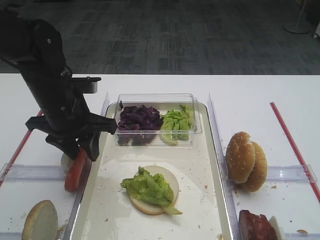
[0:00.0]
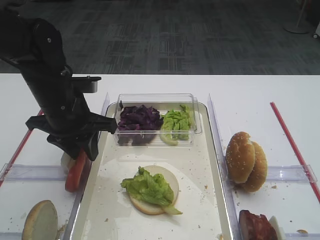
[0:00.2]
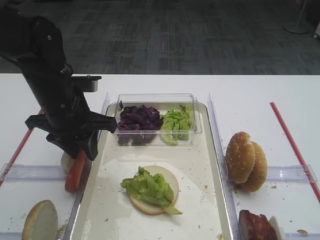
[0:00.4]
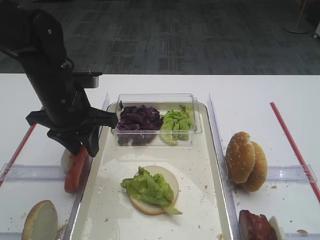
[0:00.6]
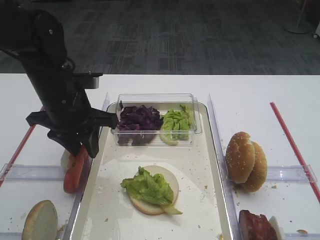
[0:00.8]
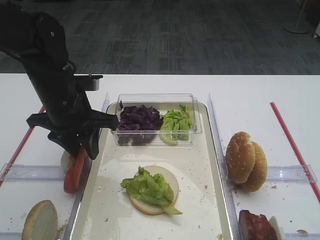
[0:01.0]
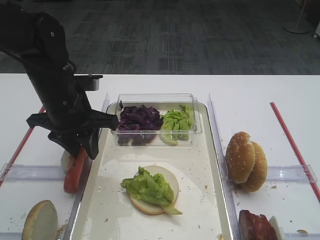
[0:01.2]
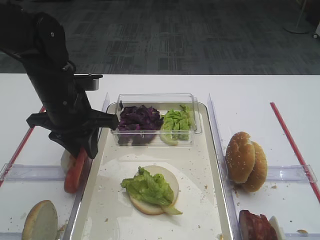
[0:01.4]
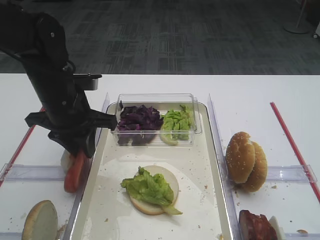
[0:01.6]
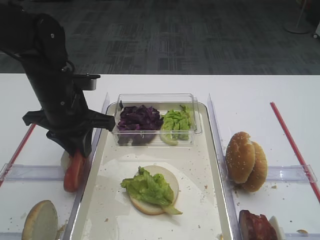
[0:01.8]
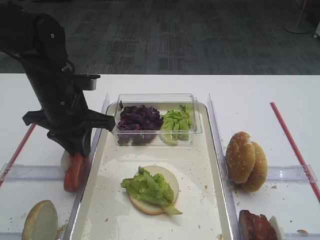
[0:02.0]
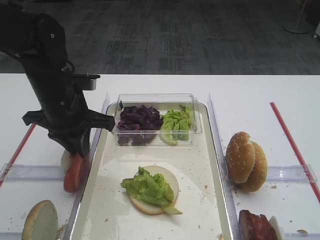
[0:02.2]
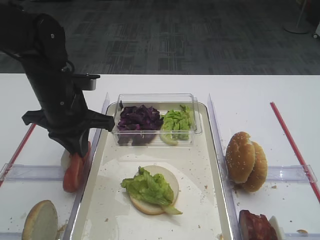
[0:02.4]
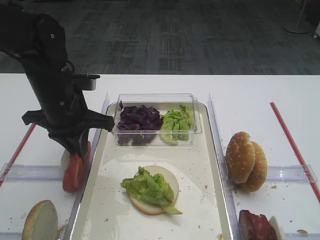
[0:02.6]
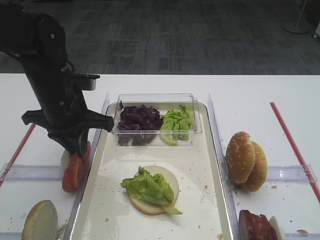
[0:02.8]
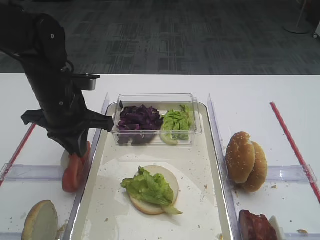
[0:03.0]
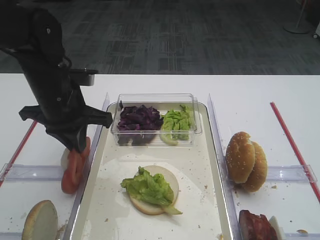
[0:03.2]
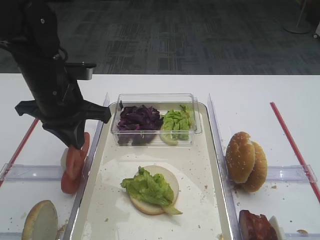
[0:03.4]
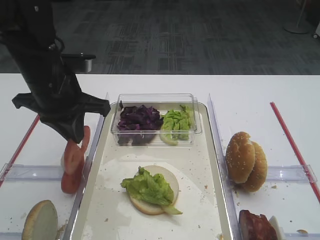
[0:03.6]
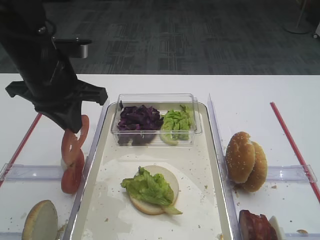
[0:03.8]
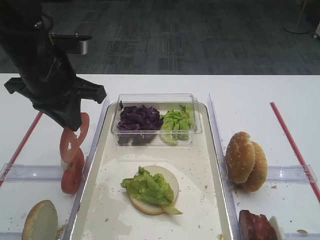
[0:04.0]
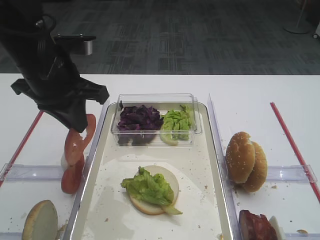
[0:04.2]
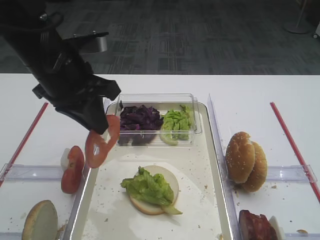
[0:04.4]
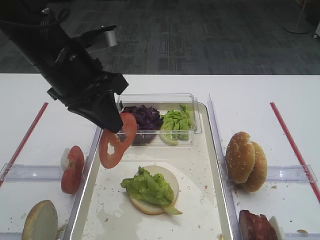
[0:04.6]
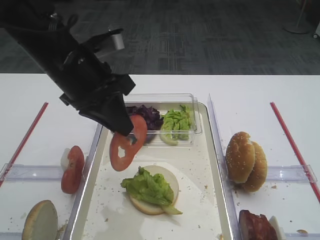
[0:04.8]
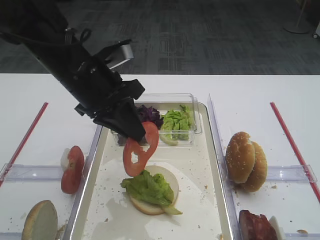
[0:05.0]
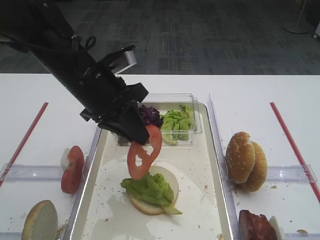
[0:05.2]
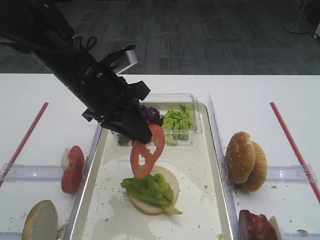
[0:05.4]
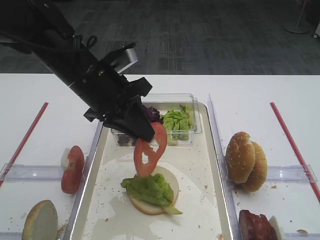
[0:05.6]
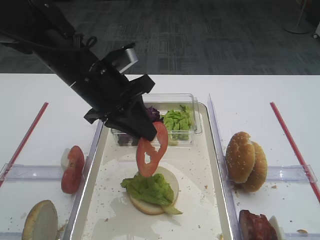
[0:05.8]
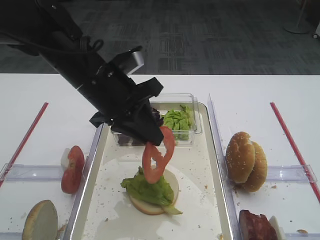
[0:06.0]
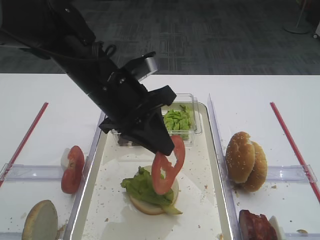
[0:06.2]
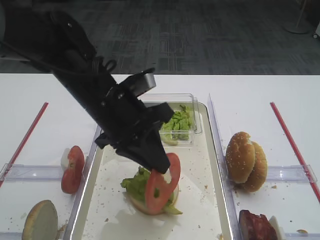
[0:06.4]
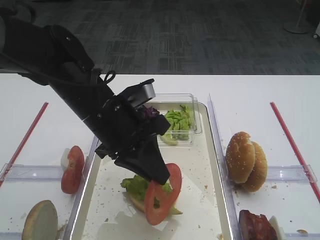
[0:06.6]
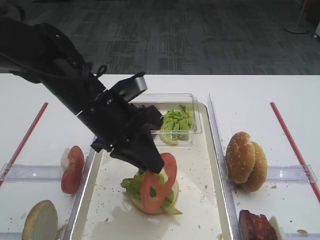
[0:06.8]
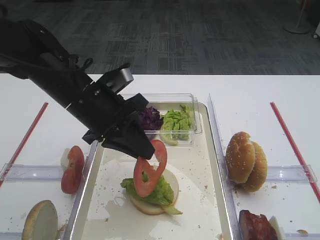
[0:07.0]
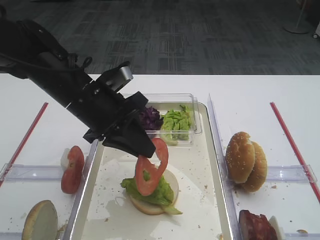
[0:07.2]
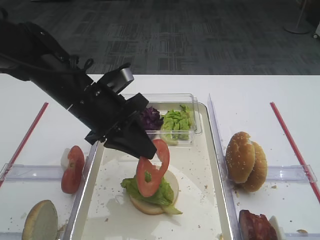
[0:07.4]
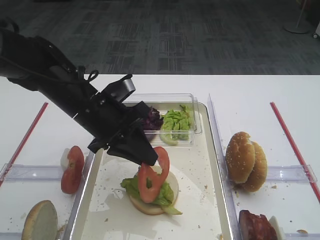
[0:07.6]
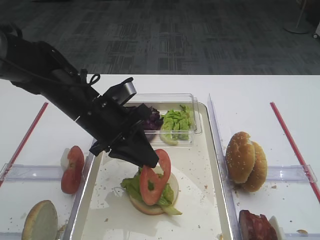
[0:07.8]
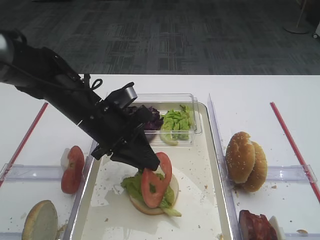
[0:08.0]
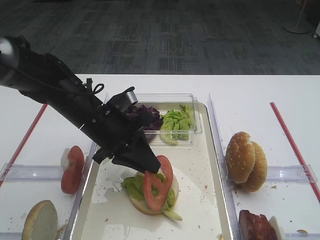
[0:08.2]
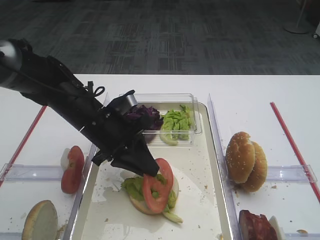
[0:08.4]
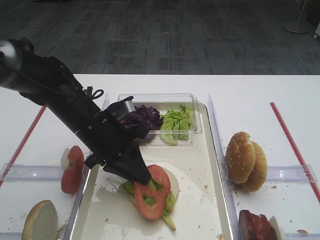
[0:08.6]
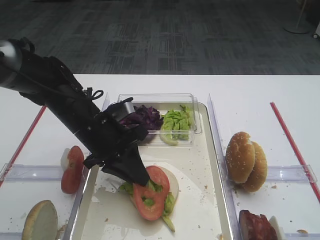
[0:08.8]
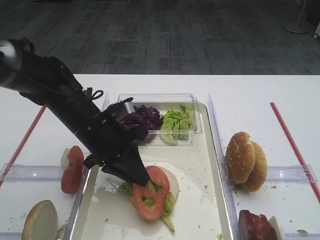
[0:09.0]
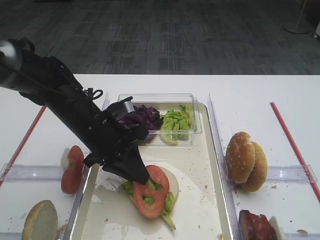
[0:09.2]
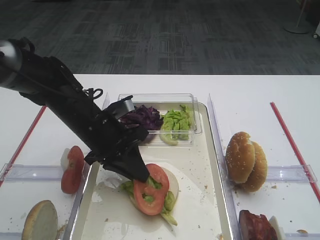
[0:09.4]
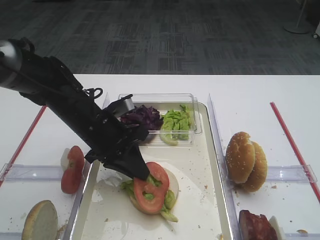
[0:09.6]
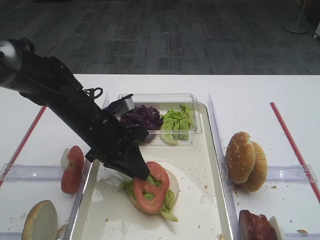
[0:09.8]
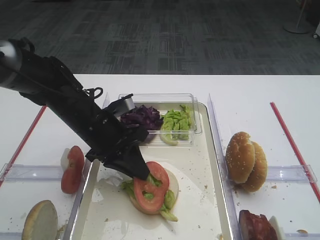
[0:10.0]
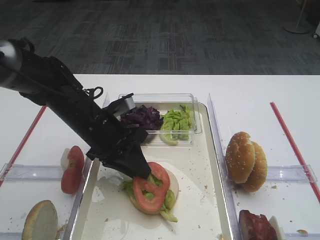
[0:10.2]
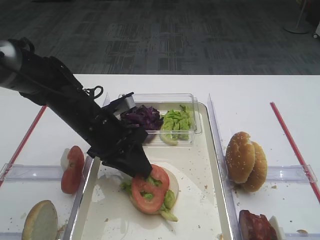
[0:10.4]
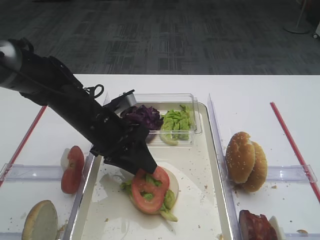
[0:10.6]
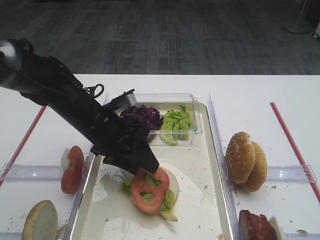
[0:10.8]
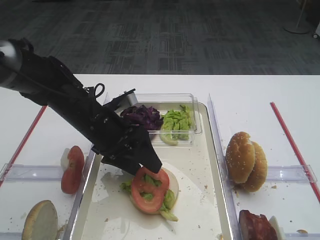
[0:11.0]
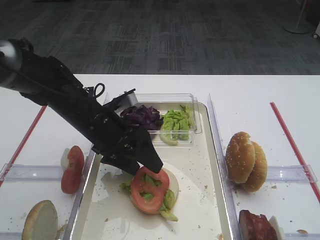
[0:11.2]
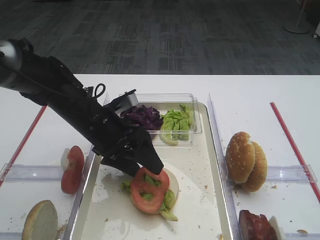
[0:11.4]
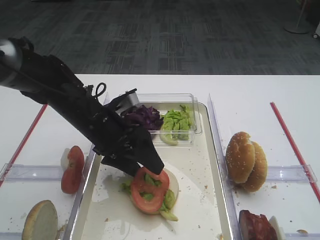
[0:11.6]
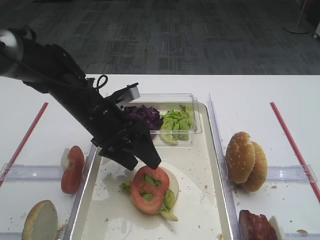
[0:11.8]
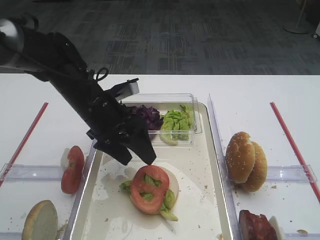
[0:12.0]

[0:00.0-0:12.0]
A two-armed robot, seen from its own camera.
Step, 0:00.0 to 0:03.8: Pick up the tomato slice with the left gripper.
Step, 0:04.0 to 0:11.8: Place the tomato slice on the lettuce leaf with the left gripper.
0:00.0 to 0:03.0: The two grippers keep their place.
0:03.0 to 0:04.4: The left gripper heads upward, covering about 10 cm.
0:04.4 to 0:06.0: The left gripper goes approximately 5 cm to the right.
0:06.0 to 0:07.6: The left gripper ends up roughly 5 cm from where it was.
0:07.6 to 0:10.4: The grippers move only a little.
0:10.4 to 0:12.0: The left gripper opens up.

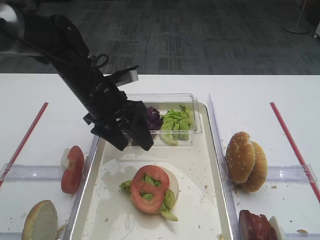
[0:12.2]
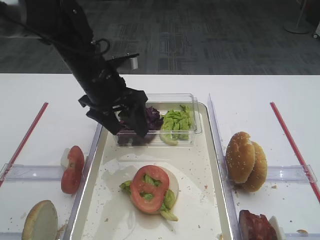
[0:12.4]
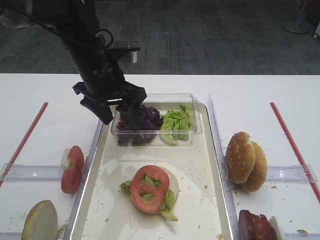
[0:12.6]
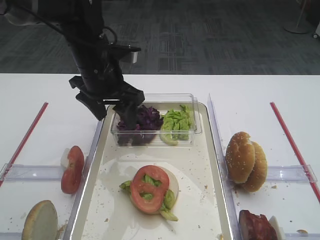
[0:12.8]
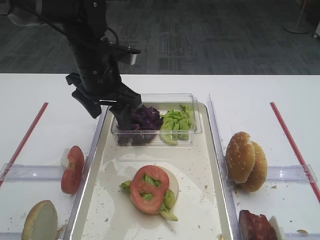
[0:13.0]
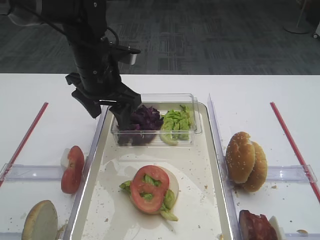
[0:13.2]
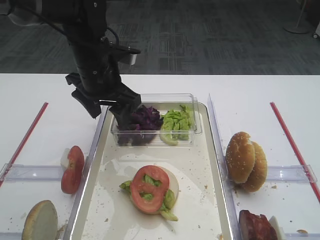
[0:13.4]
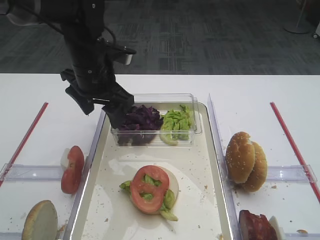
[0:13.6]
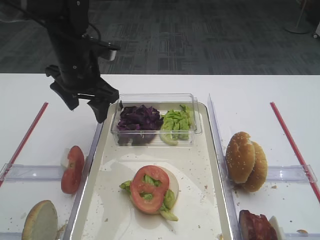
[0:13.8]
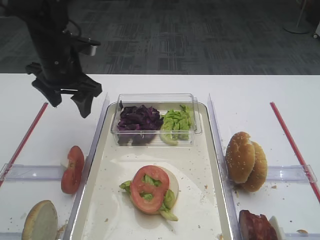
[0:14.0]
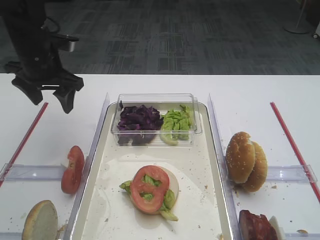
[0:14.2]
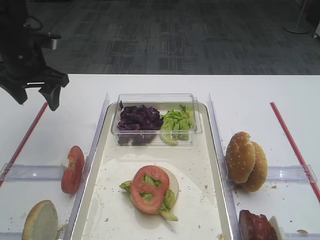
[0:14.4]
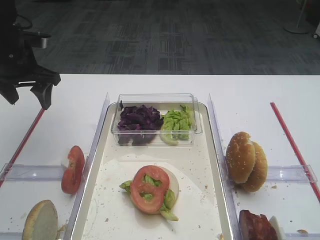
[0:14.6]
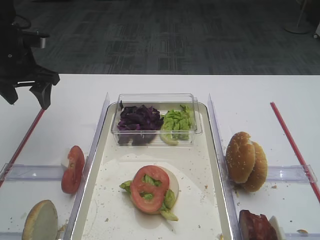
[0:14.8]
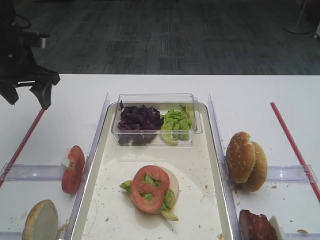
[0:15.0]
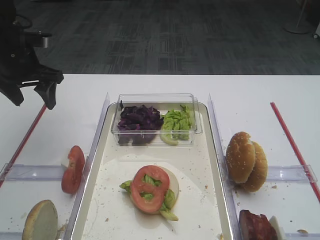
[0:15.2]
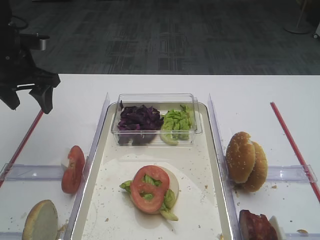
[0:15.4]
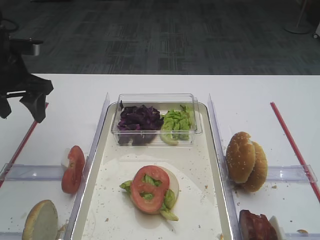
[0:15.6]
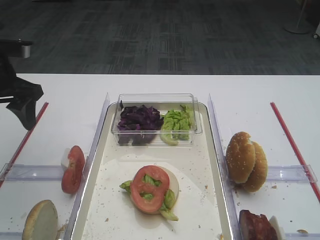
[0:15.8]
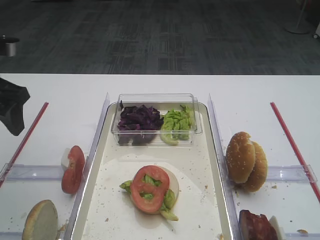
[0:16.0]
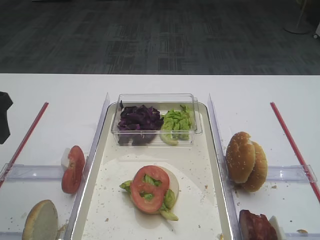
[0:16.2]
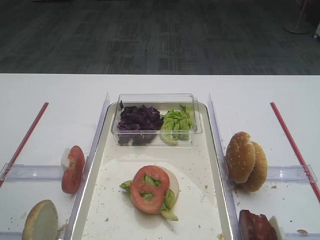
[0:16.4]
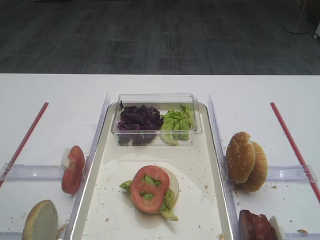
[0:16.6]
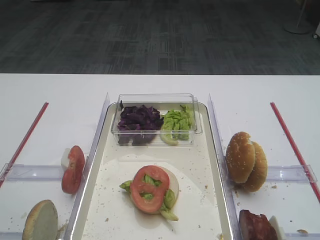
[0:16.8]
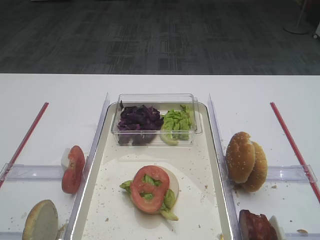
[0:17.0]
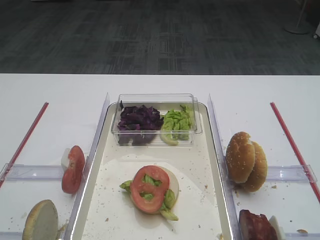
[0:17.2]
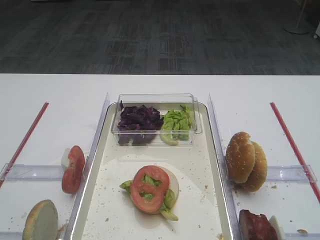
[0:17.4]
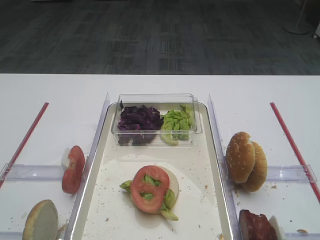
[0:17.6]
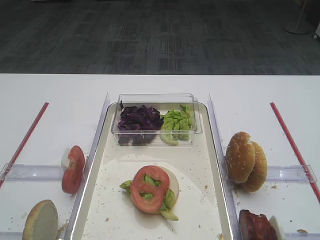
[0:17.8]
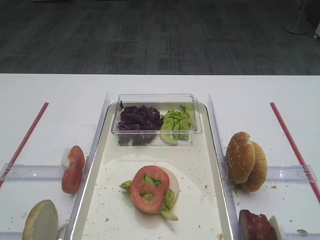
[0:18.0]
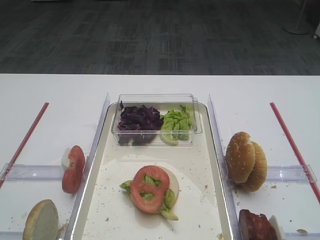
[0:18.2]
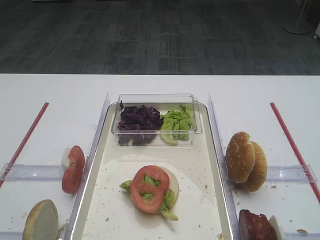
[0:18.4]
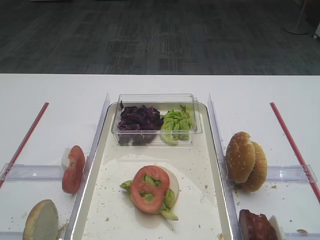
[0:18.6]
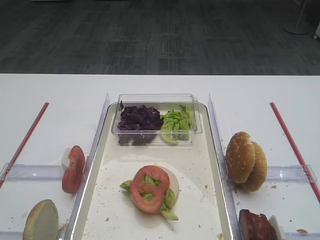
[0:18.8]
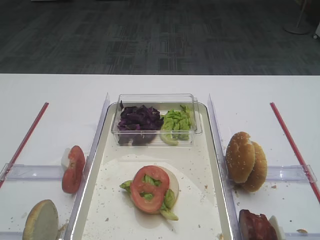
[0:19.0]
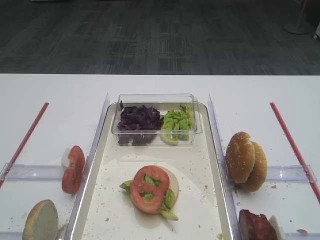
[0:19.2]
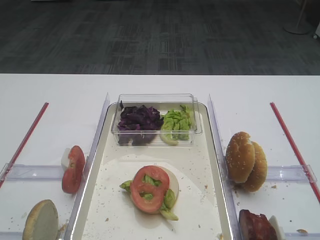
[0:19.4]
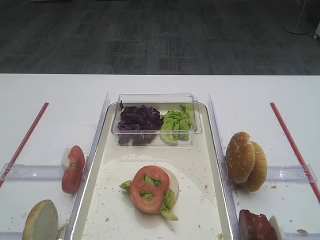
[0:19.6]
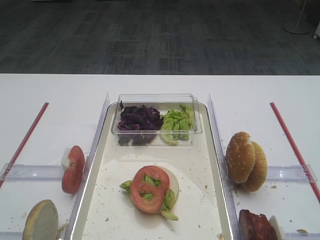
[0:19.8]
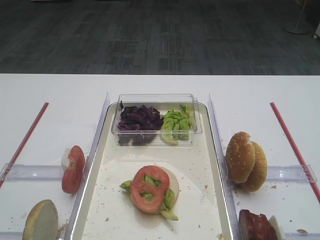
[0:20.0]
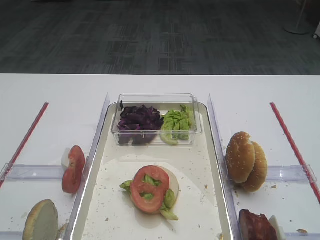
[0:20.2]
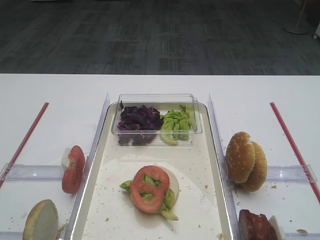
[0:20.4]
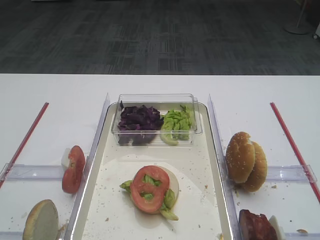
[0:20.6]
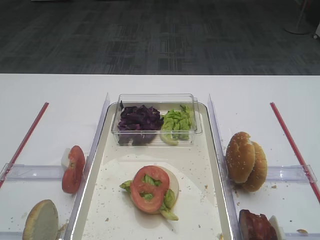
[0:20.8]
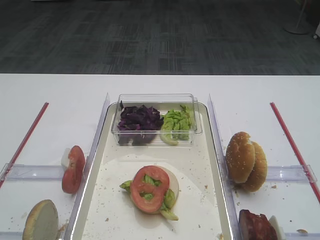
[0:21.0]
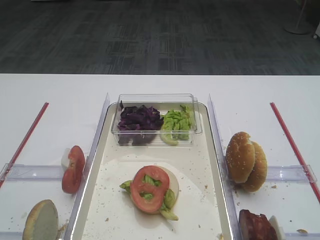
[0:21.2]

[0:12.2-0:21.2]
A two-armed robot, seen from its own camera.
0:12.2 to 0:13.8: The left gripper changes place by approximately 5 cm.
0:13.8 to 0:15.2: The left gripper moves to the left, approximately 10 cm.
0:15.2 to 0:16.6: The left gripper shifts roughly 25 cm backward.
0:19.8 to 0:21.2: Both grippers stay put.

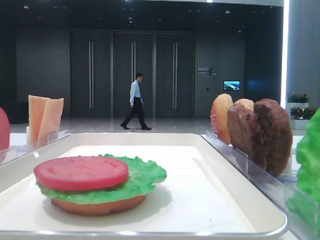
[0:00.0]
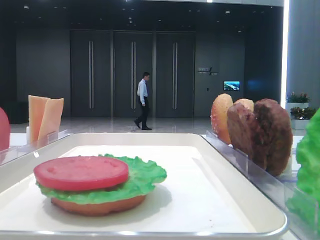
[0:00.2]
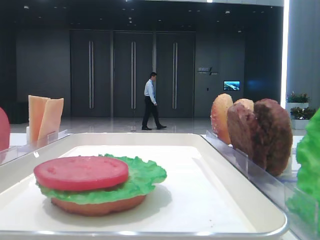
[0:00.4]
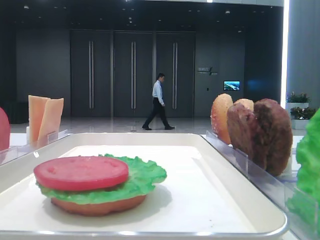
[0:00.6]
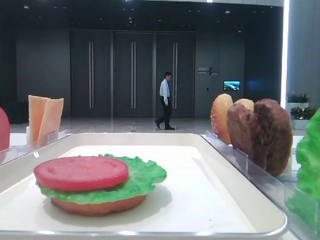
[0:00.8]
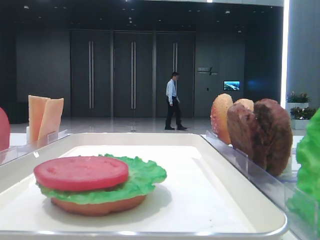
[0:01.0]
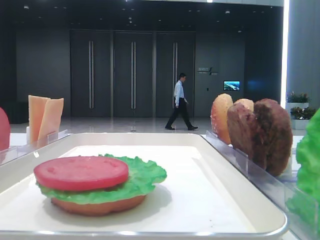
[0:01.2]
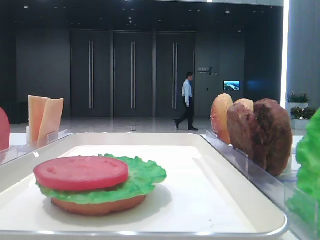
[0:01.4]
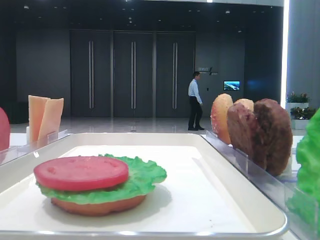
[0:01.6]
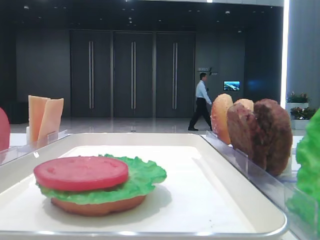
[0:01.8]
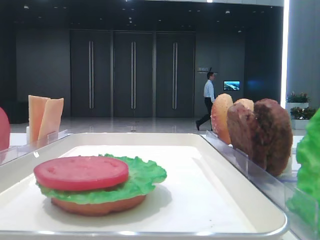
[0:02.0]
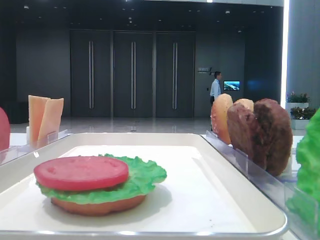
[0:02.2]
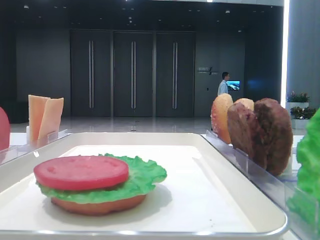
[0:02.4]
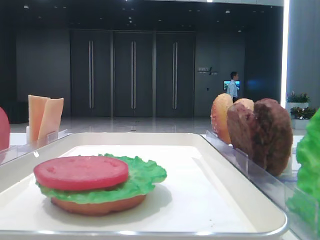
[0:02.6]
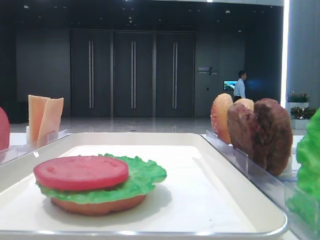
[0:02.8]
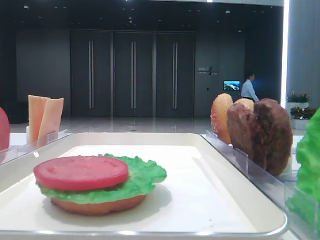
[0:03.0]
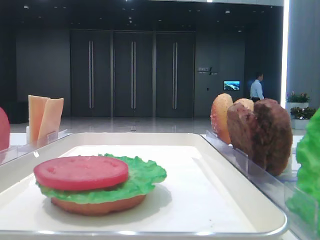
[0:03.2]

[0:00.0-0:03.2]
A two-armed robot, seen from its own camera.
0:01.6 to 0:03.2: The right gripper goes about 20 cm forward.
